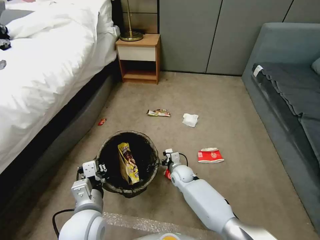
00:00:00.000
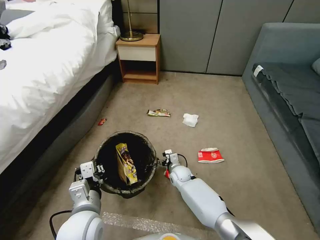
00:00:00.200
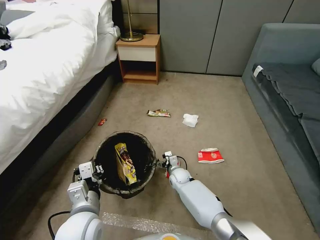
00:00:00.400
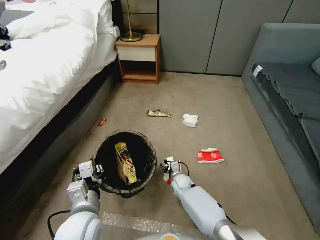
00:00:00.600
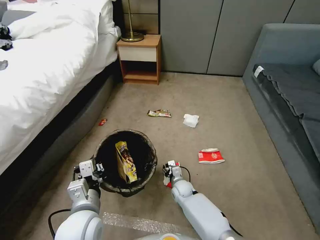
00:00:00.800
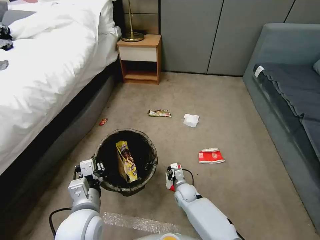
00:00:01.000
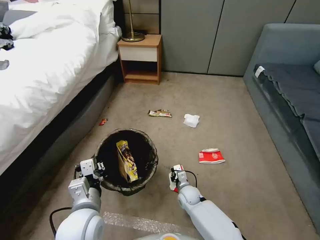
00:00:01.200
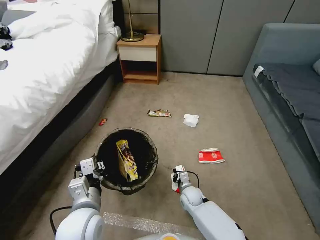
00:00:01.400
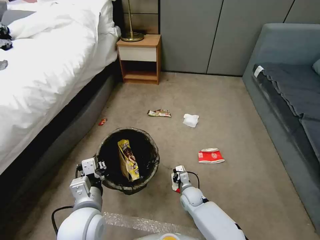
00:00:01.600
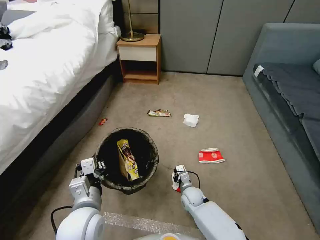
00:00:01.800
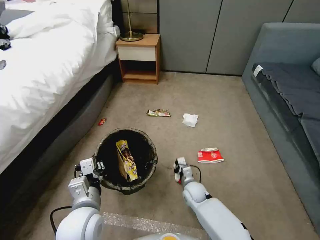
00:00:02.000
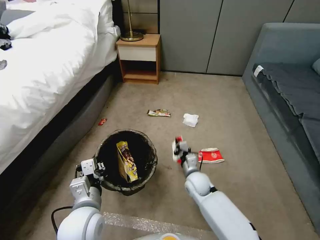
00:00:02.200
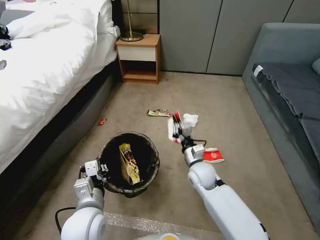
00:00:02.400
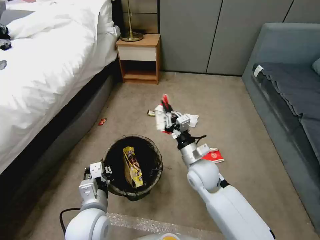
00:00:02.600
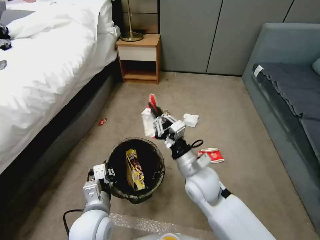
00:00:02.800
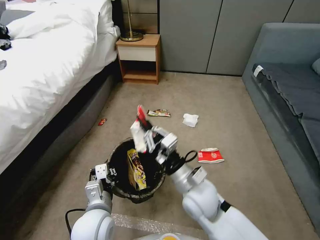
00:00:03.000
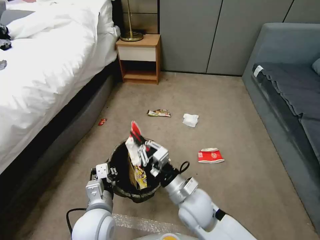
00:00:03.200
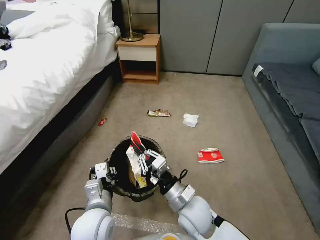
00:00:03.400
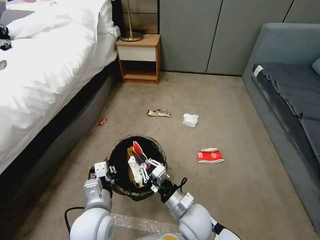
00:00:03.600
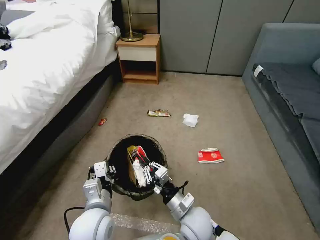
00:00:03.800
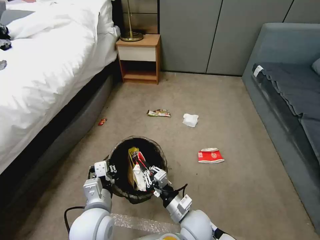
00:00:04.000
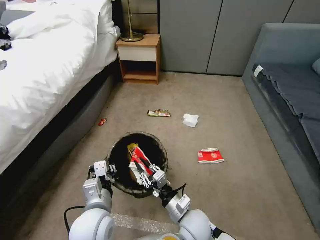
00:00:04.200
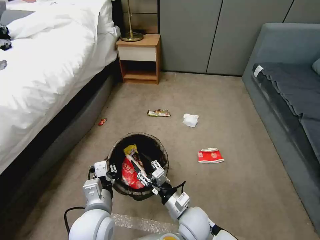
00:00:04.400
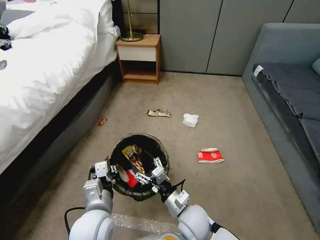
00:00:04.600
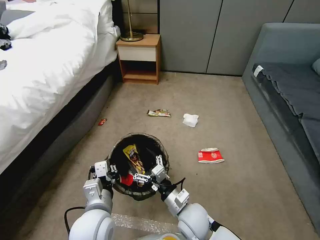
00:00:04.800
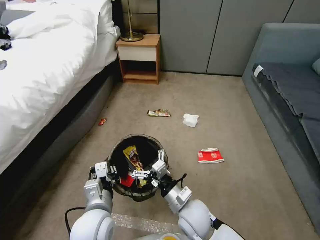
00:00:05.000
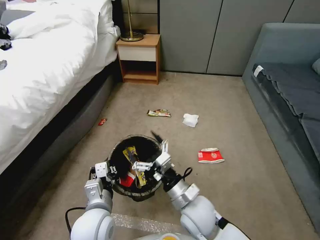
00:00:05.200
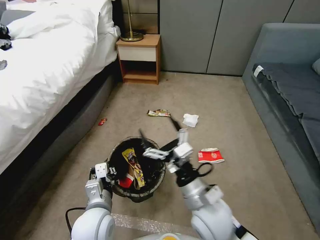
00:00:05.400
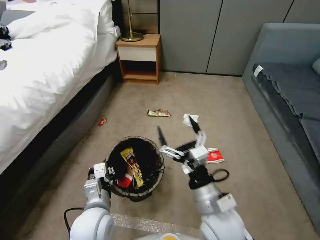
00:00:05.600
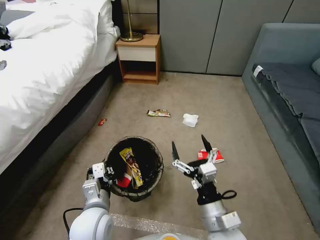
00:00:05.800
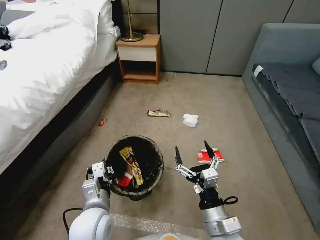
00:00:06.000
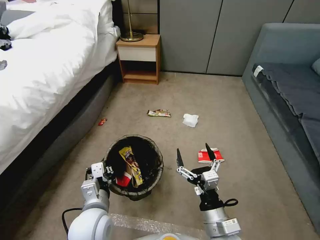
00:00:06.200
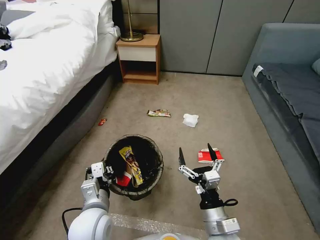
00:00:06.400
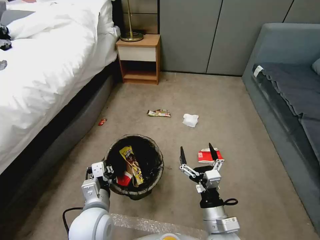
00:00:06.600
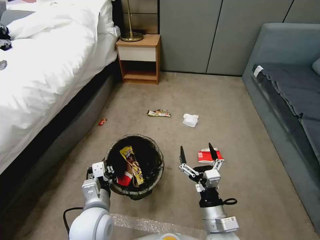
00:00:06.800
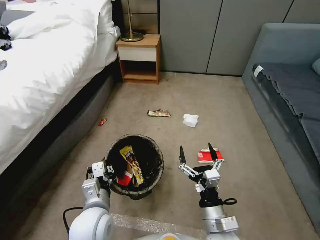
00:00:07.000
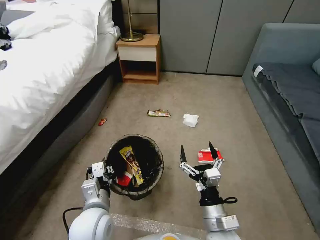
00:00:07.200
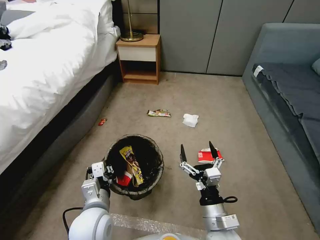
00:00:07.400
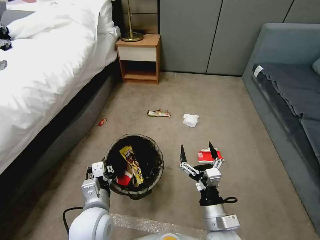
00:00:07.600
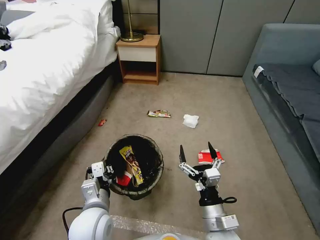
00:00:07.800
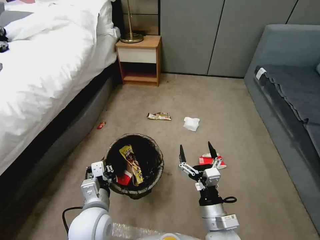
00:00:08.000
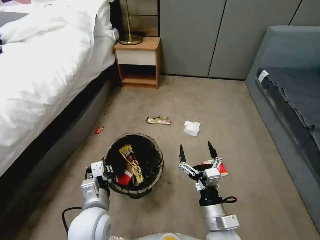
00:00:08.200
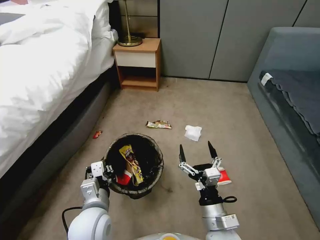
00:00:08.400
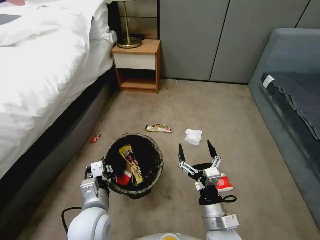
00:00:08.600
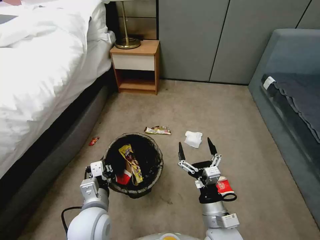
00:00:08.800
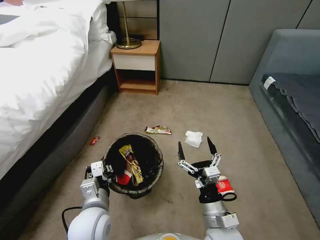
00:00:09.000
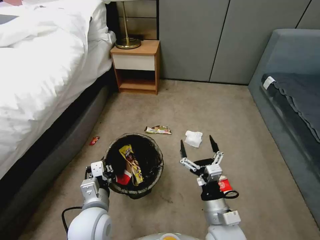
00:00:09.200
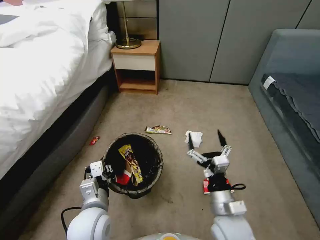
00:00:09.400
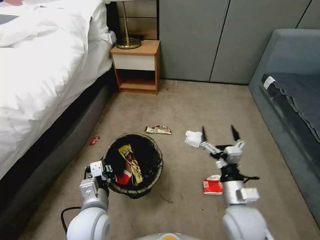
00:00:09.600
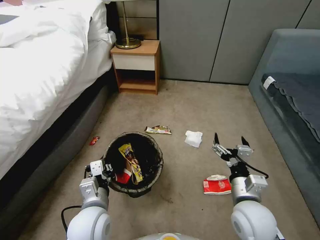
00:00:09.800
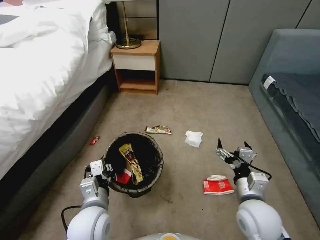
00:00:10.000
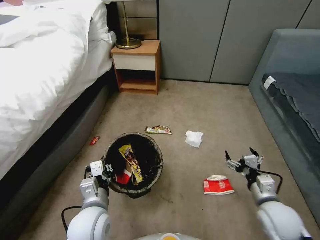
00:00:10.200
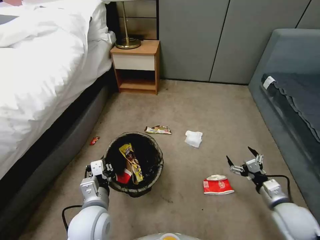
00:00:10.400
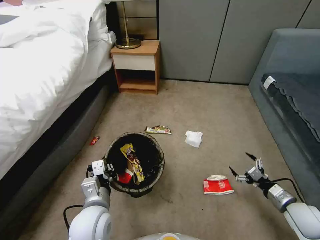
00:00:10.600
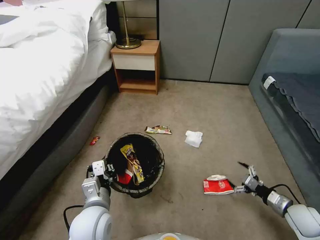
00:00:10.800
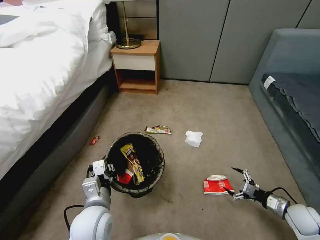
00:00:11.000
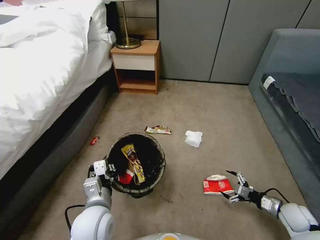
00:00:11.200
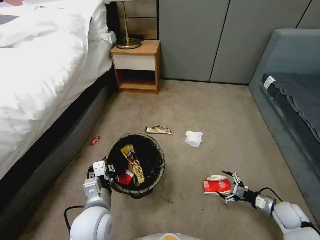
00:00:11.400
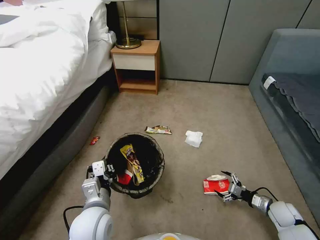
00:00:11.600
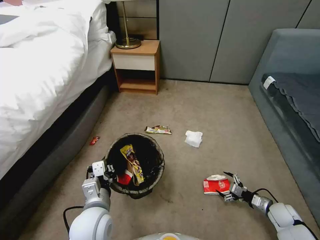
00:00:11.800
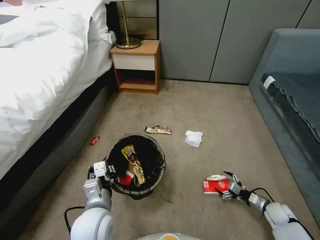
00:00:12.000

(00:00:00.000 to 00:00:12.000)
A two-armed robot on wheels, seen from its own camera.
Task of the whole recording: Pick up the trash bin, then pick up the garbage from the floor and place it into the trash bin.
00:00:00.000 - 00:00:01.600: The right gripper heads backward and downward, covering approximately 10 cm, and closes its fingers.
00:00:01.600 - 00:00:03.000: The right gripper moves upward, some 25 cm.
00:00:03.000 - 00:00:04.400: The right gripper goes roughly 10 cm downward, and opens up.
00:00:04.400 - 00:00:06.000: The right gripper heads upward, backward and to the right, covering approximately 10 cm, and opens its fingers.
00:00:06.000 - 00:00:07.600: The grippers make only small movements.
00:00:09.000 - 00:00:10.400: The right gripper goes roughly 25 cm to the right.
00:00:10.400 - 00:00:12.000: The right gripper shifts some 15 cm downward.

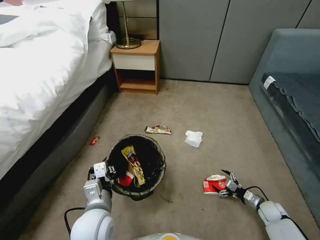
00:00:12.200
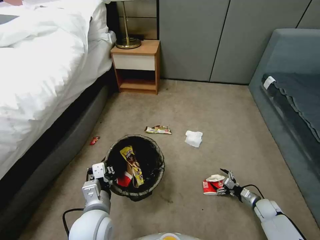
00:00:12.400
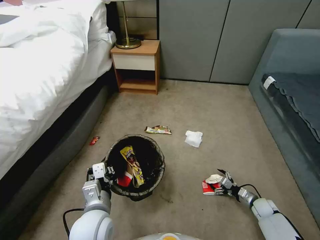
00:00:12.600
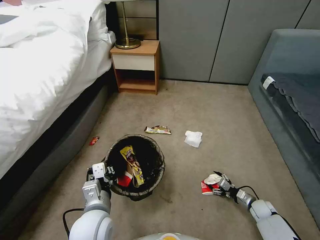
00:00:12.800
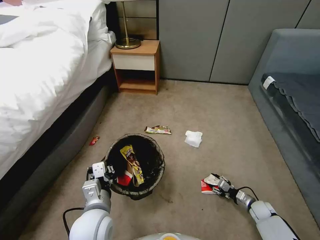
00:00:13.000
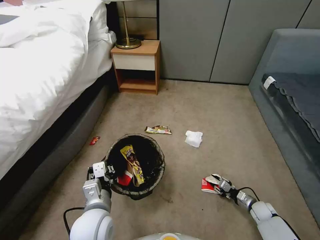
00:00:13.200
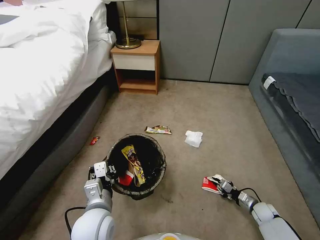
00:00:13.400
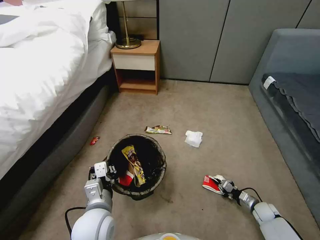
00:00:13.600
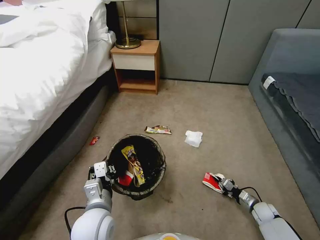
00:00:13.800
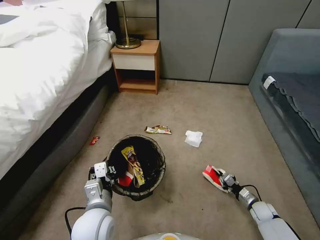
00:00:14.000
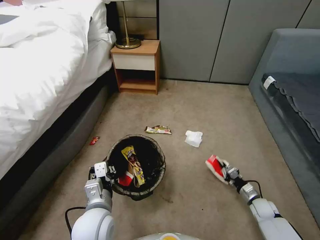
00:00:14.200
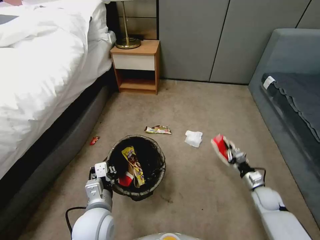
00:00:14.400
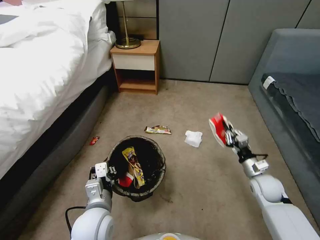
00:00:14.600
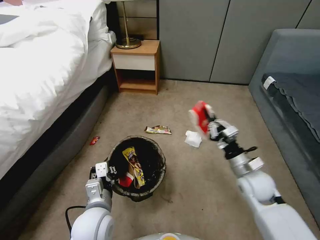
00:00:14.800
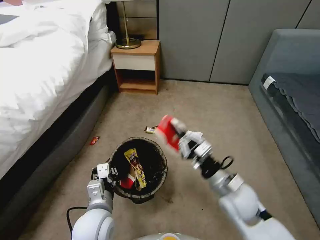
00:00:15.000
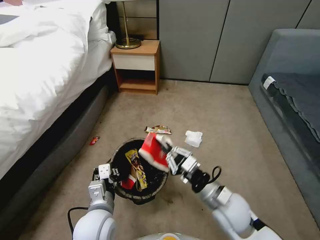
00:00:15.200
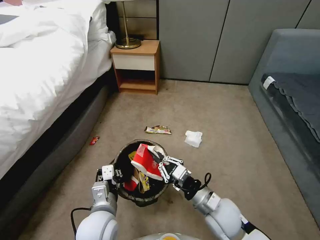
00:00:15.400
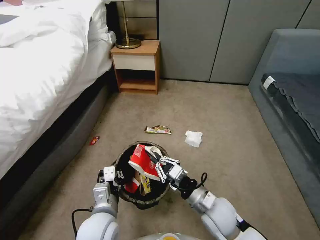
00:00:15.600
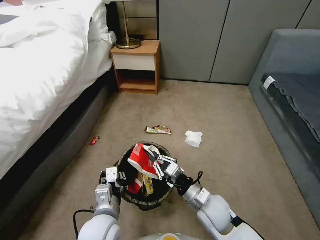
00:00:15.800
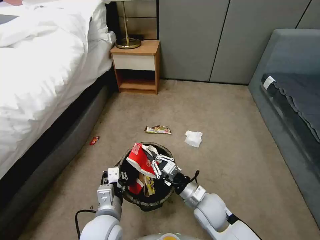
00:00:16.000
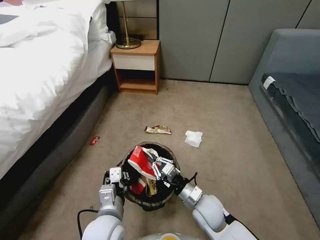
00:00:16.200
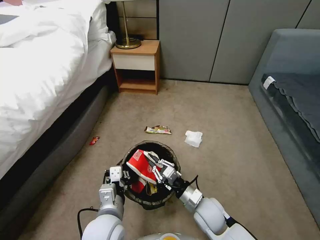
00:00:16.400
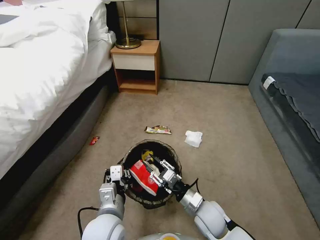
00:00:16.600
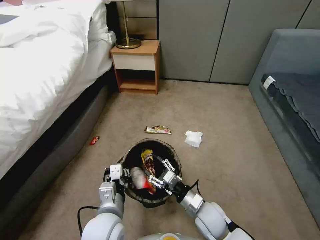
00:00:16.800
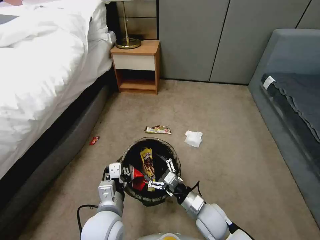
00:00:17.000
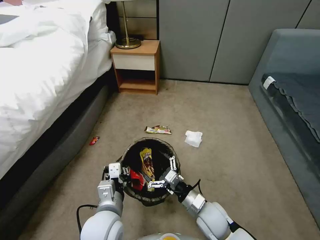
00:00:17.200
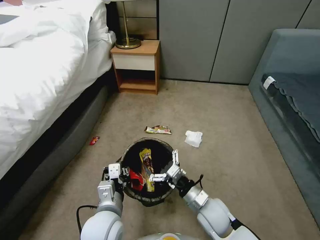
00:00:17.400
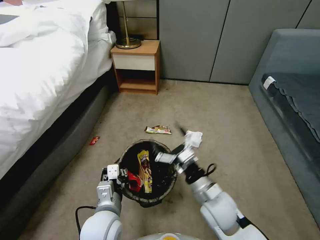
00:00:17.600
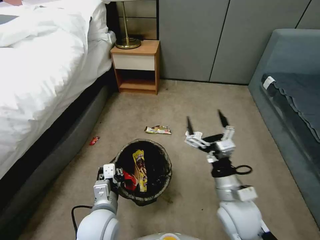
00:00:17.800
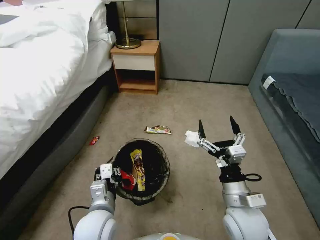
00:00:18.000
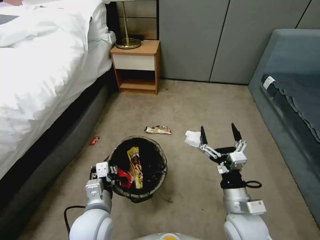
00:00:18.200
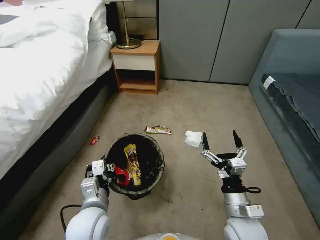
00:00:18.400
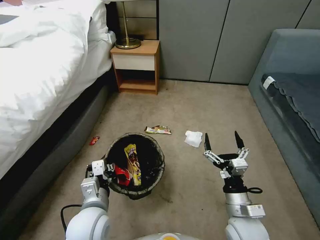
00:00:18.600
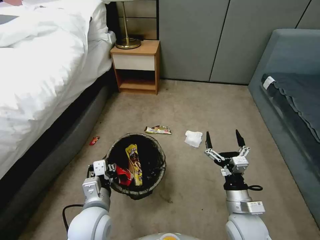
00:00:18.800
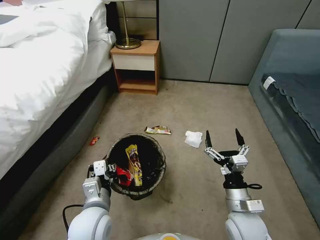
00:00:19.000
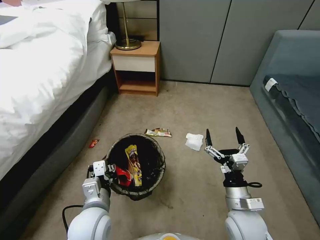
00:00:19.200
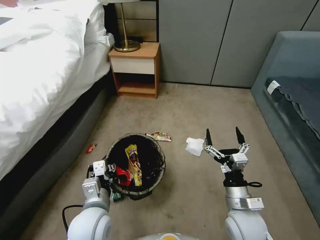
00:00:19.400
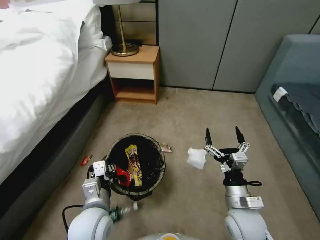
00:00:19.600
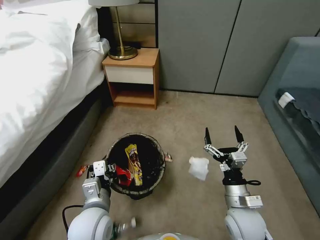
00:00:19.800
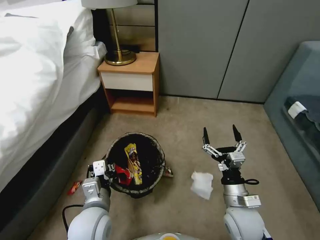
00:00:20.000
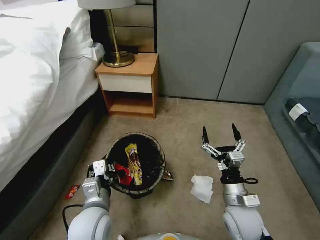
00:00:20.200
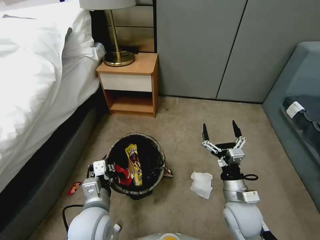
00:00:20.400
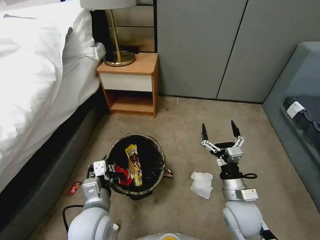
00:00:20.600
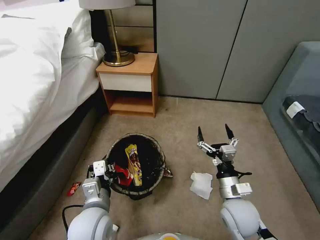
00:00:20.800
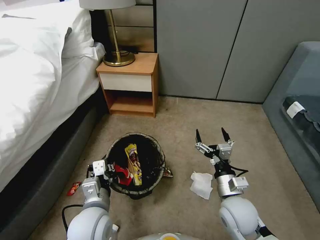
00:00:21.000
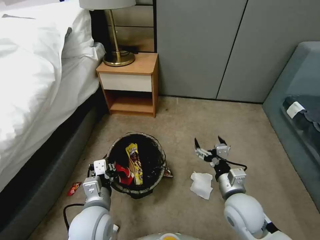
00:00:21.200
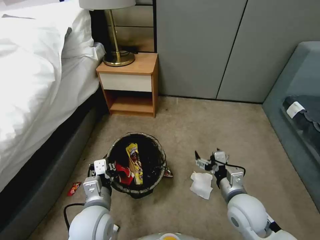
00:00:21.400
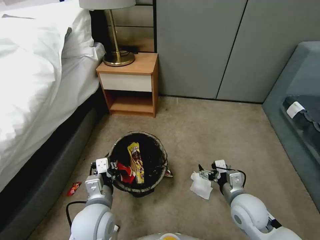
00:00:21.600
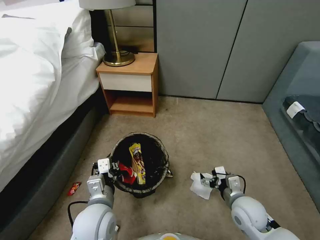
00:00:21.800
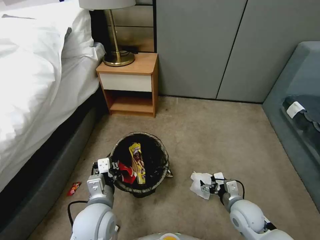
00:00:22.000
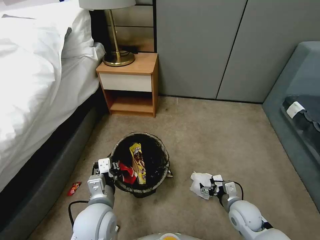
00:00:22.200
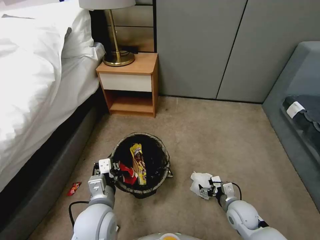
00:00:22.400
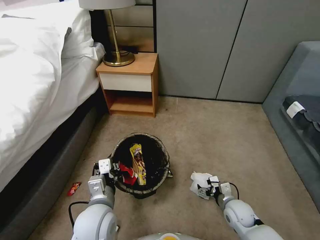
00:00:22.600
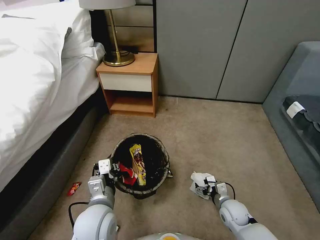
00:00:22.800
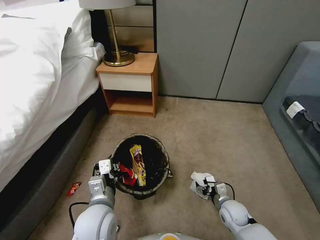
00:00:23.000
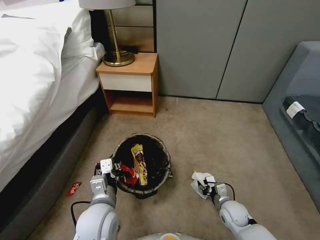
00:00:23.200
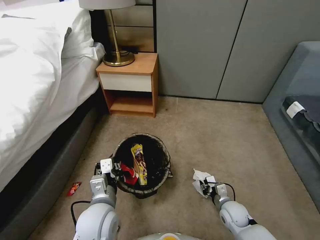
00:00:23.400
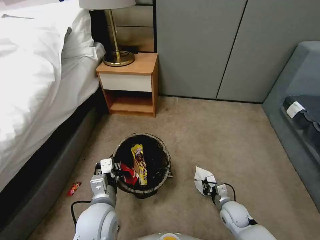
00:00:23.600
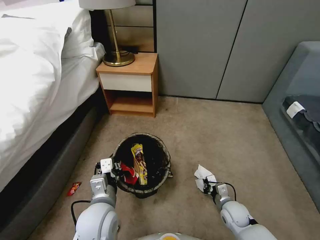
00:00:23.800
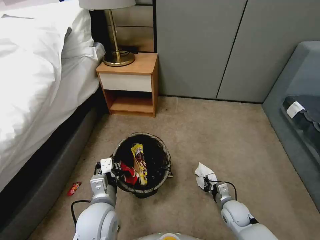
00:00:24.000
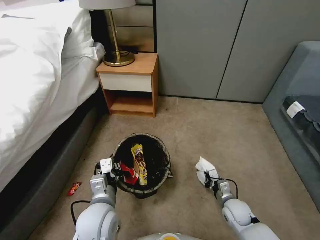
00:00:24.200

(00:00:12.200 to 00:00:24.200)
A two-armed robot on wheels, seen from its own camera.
Task of the whole recording: Pick up the trash bin, then pick up the garbage from the floor and place it into the trash bin.
00:00:12.200 - 00:00:13.800: The right gripper closes up.
00:00:13.800 - 00:00:15.200: The right gripper travels upward and to the left by some 35 cm.
00:00:15.200 - 00:00:16.600: The right gripper moves downward, approximately 10 cm.
00:00:16.600 - 00:00:18.200: The right gripper goes roughly 10 cm upward and to the right, and opens its fingers.
00:00:21.200 - 00:00:22.600: The right gripper goes approximately 15 cm downward.
00:00:22.600 - 00:00:24.200: The right gripper closes its fingers.
